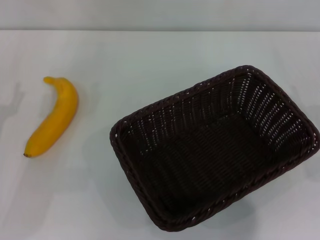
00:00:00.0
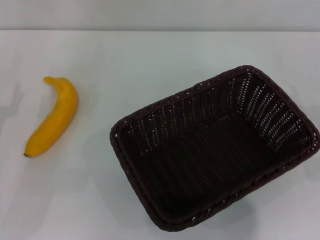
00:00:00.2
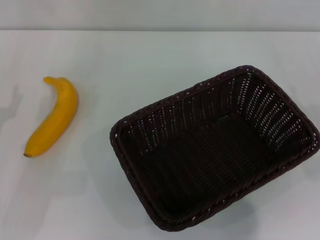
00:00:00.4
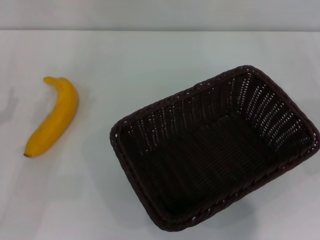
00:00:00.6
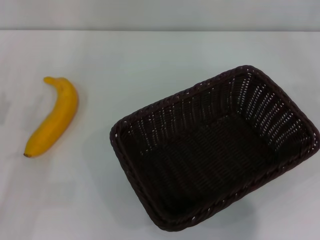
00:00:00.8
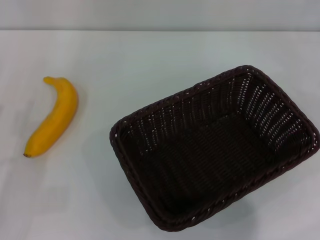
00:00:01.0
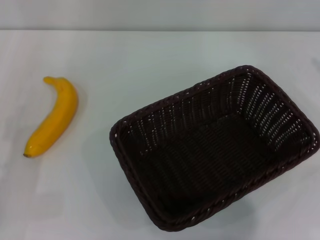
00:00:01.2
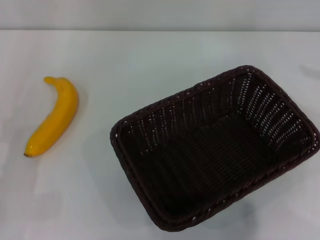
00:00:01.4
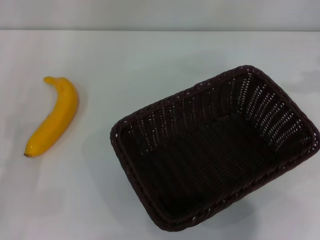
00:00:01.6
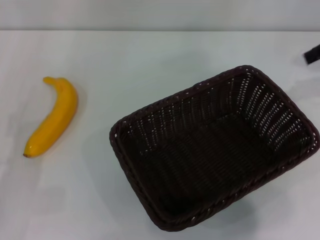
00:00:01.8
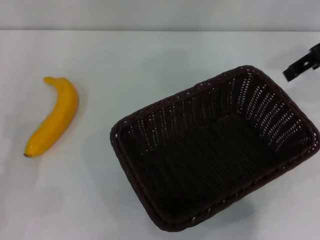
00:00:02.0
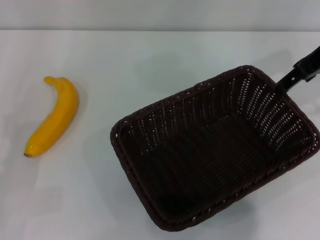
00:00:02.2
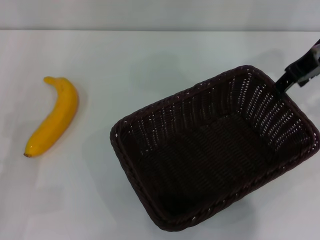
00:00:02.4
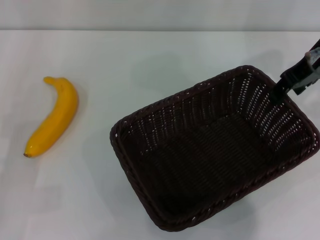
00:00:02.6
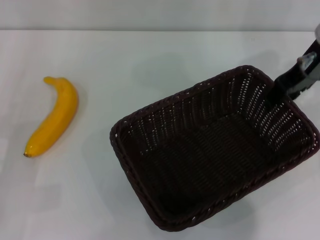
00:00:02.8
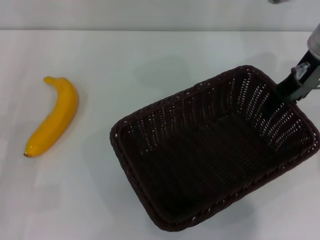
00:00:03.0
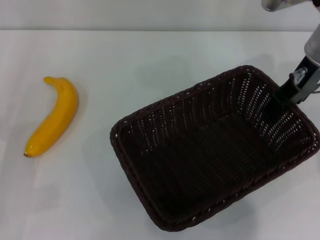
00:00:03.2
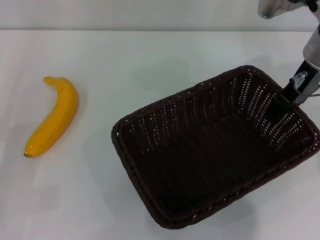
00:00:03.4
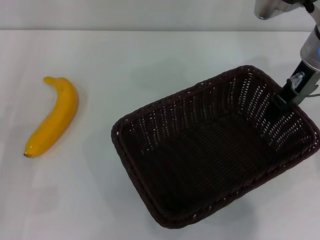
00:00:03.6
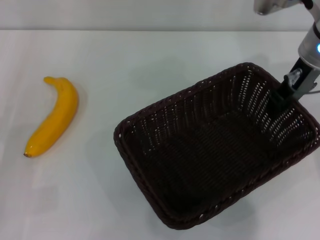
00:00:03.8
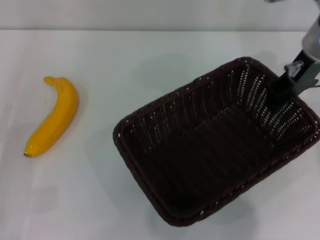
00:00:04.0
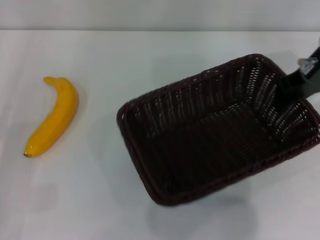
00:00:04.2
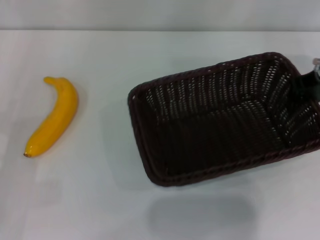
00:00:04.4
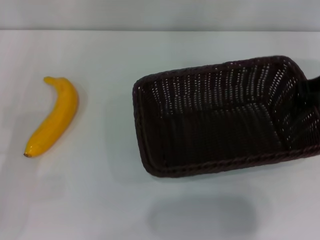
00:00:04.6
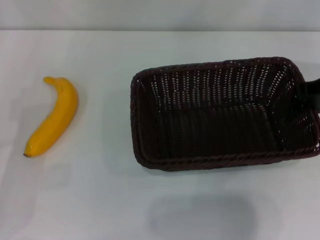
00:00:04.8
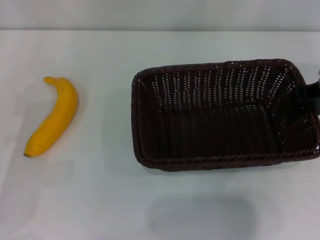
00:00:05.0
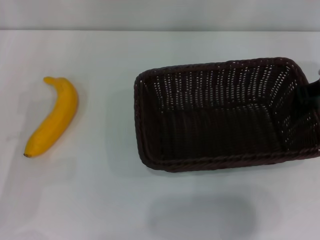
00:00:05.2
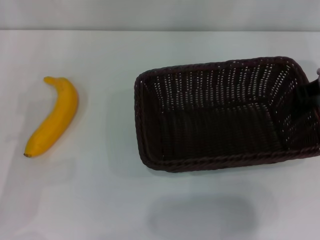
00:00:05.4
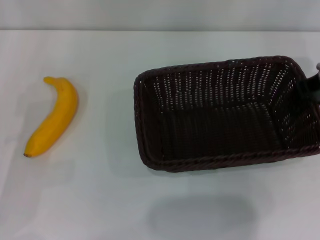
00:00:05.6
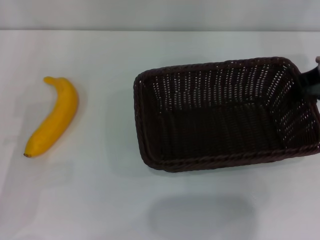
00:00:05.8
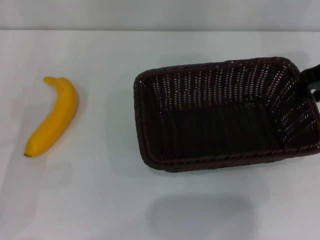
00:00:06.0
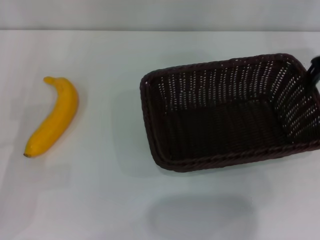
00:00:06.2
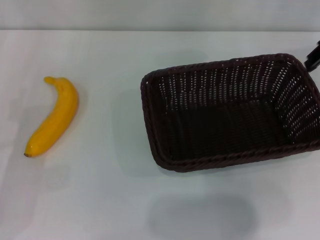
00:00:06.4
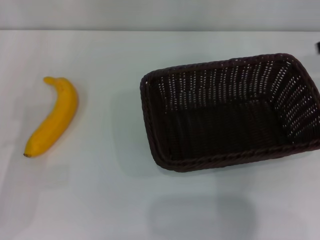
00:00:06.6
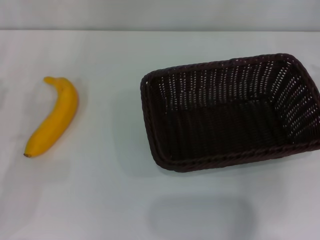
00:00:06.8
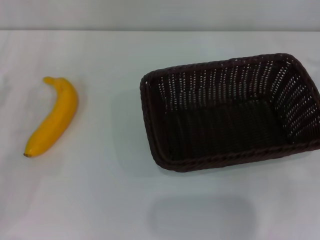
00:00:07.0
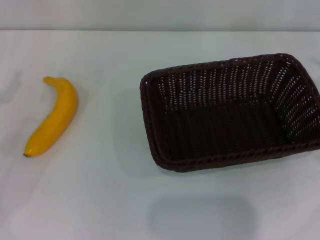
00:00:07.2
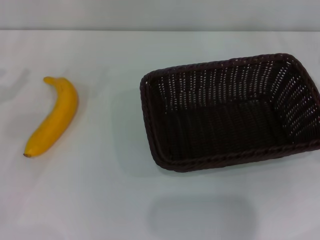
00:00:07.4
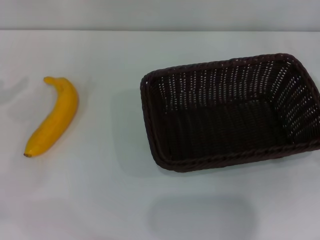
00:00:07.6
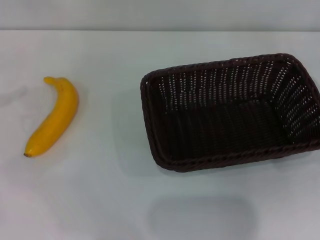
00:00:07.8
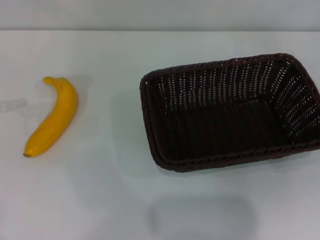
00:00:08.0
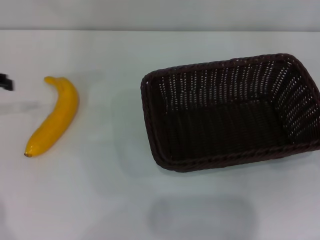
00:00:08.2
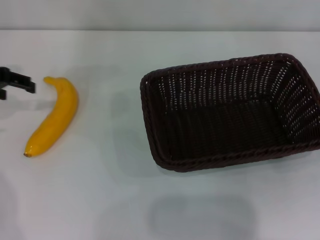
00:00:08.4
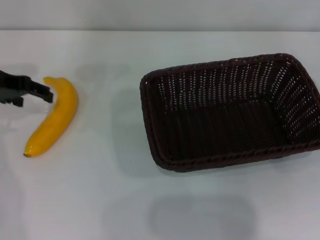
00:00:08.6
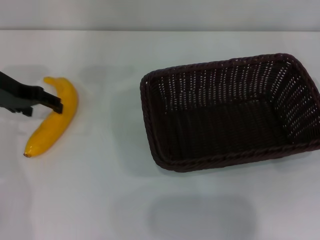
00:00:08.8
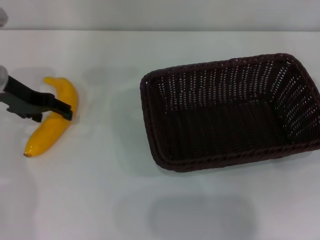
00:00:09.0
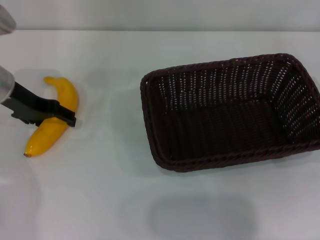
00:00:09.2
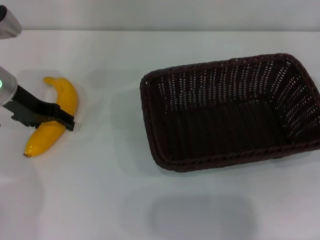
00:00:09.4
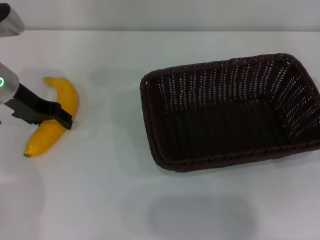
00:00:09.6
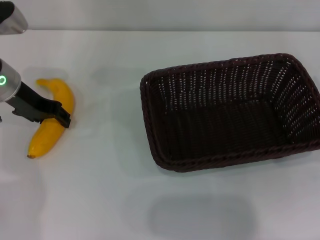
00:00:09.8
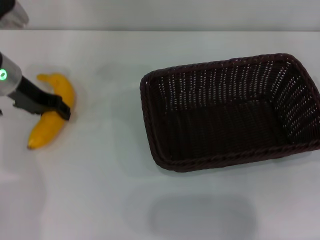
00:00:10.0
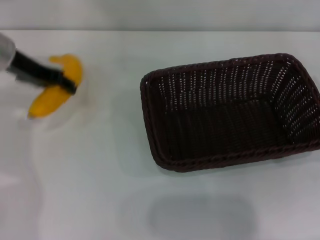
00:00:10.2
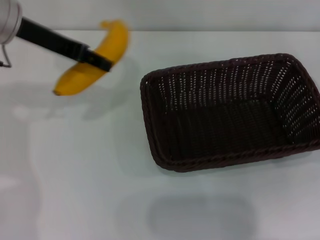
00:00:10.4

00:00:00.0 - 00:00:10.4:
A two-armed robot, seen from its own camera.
Step, 00:00:00.0 - 00:00:04.4: Pick up the dark basket with the right gripper.
Step, 00:00:04.6 - 00:00:06.4: Place the dark basket in the center of view with the right gripper.
Step, 00:00:06.6 - 00:00:10.0: Pick up the banana with the left gripper.
00:00:01.4 - 00:00:03.0: The right gripper moves to the left, some 20 cm.
00:00:03.0 - 00:00:04.4: The right gripper closes.
00:00:04.4 - 00:00:06.0: The grippers stay close to where they were, moving slightly.
00:00:06.0 - 00:00:07.4: The left gripper is displaced upward by roughly 10 cm; the right gripper heads to the right, downward and backward, covering approximately 20 cm.
00:00:07.4 - 00:00:09.0: The left gripper goes approximately 15 cm to the right and forward.
00:00:09.0 - 00:00:10.4: The left gripper shifts approximately 10 cm upward, and closes its fingers.

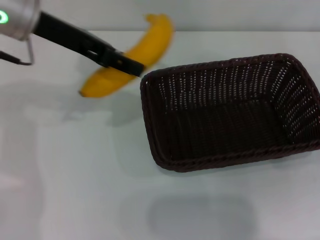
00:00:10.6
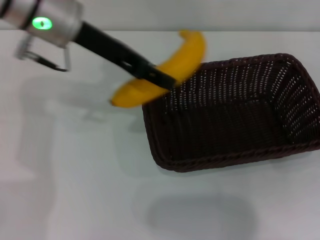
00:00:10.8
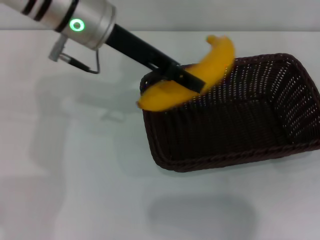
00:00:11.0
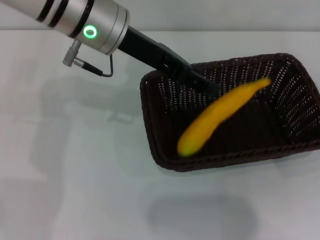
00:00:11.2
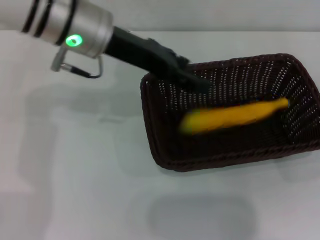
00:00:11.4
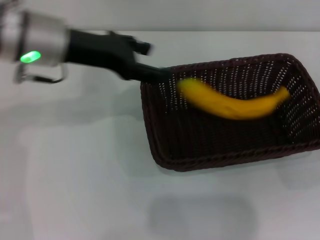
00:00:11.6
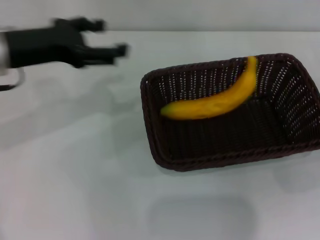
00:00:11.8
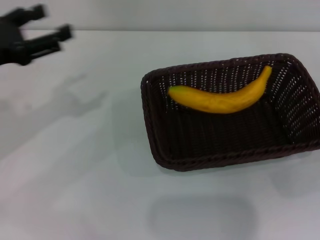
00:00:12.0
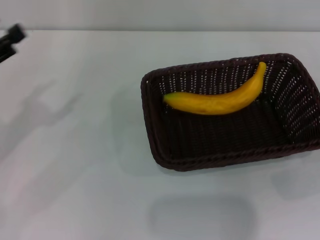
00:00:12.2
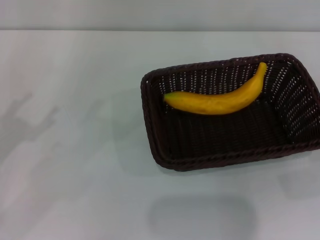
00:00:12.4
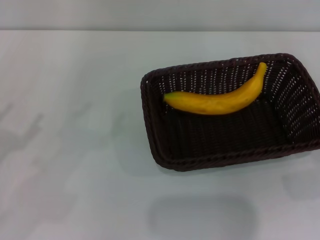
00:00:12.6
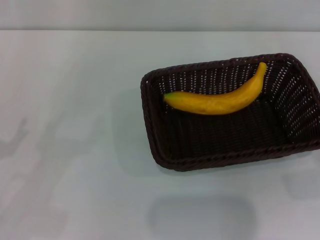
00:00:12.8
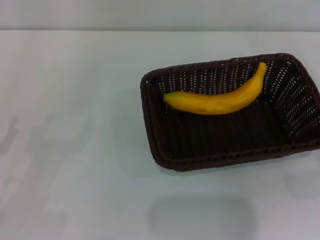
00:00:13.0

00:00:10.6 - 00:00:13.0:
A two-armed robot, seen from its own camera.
Step, 00:00:10.6 - 00:00:11.4: Place the banana into the dark basket with the left gripper.
00:00:10.6 - 00:00:11.8: The left gripper goes about 10 cm downward and to the left, and opens.
00:00:11.8 - 00:00:13.0: The left gripper goes some 25 cm backward, downward and to the left.
